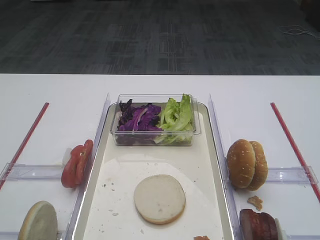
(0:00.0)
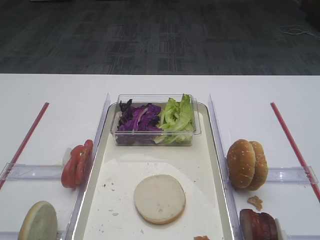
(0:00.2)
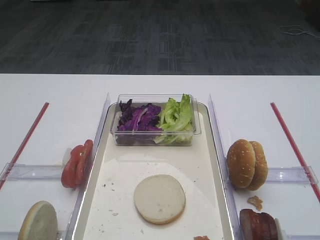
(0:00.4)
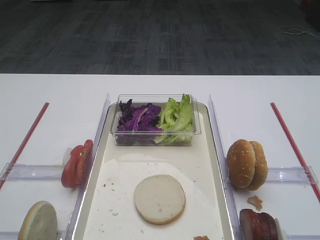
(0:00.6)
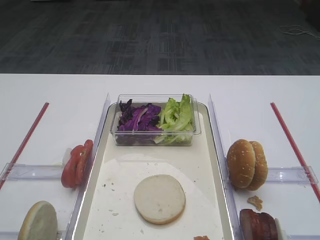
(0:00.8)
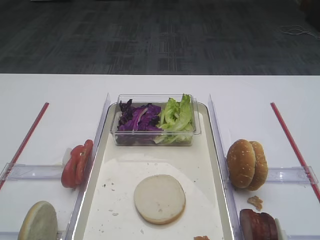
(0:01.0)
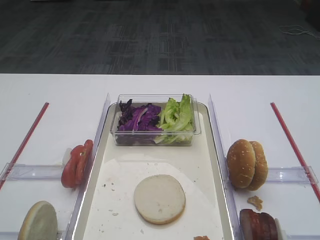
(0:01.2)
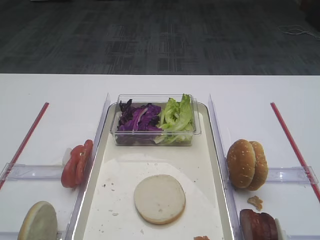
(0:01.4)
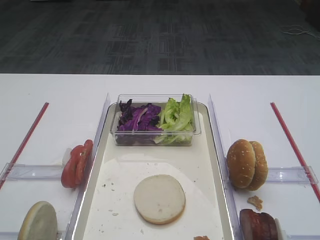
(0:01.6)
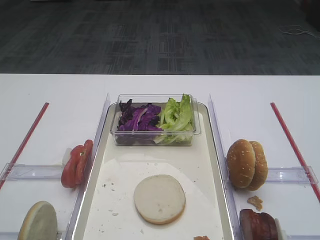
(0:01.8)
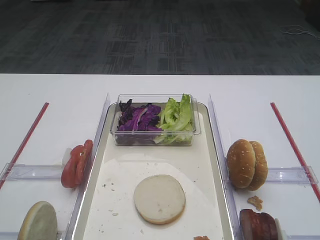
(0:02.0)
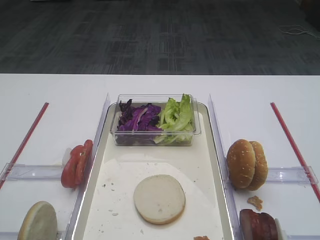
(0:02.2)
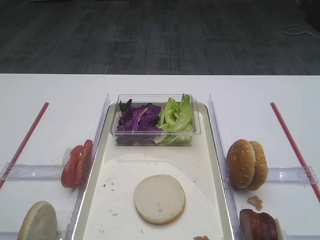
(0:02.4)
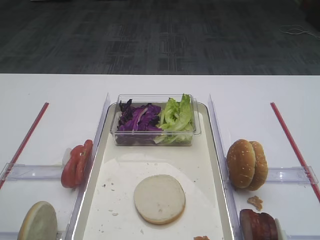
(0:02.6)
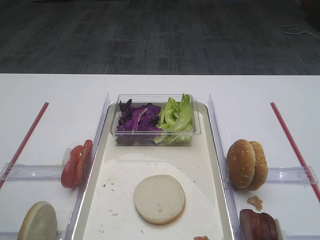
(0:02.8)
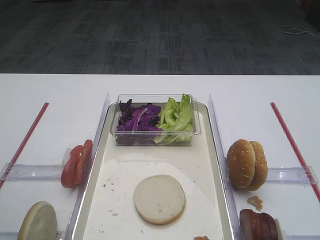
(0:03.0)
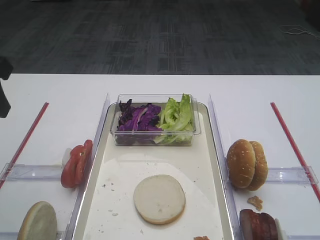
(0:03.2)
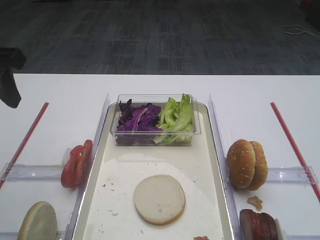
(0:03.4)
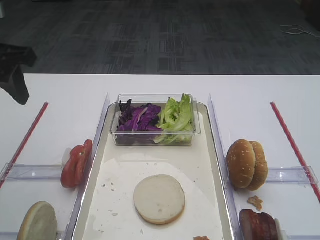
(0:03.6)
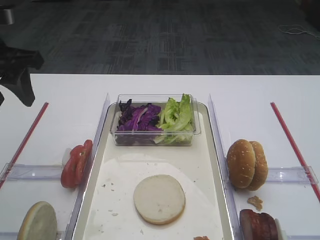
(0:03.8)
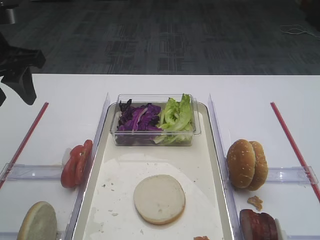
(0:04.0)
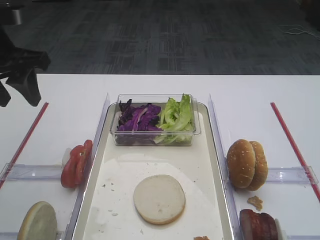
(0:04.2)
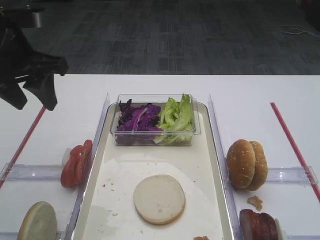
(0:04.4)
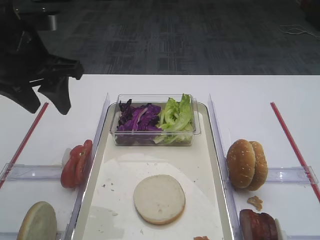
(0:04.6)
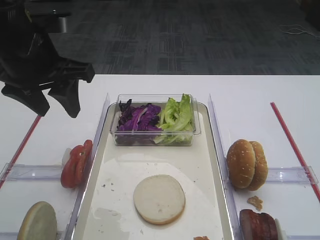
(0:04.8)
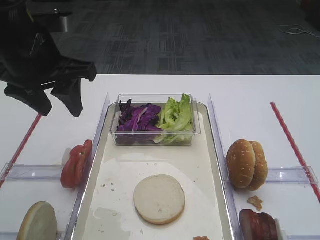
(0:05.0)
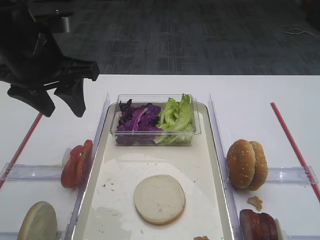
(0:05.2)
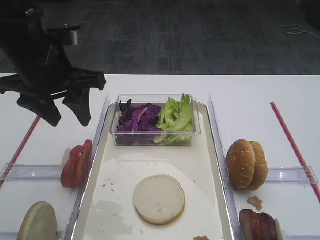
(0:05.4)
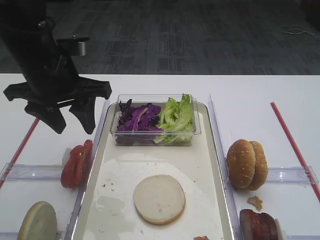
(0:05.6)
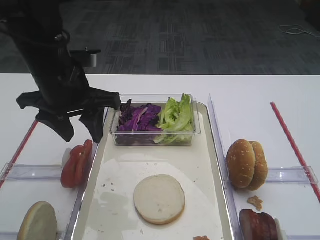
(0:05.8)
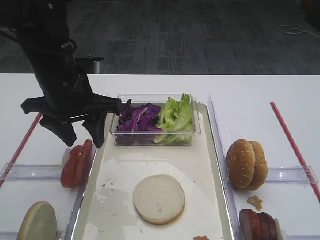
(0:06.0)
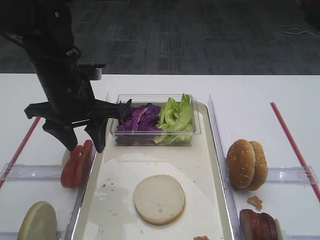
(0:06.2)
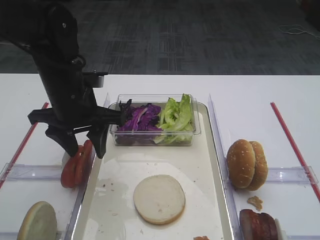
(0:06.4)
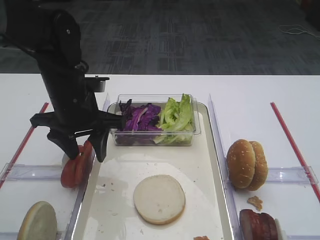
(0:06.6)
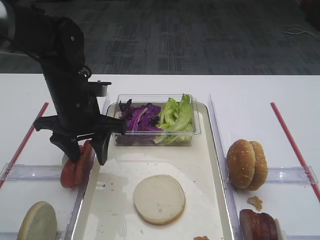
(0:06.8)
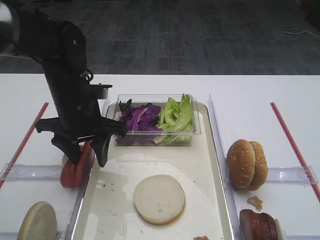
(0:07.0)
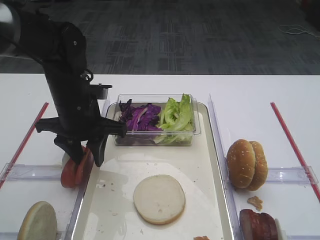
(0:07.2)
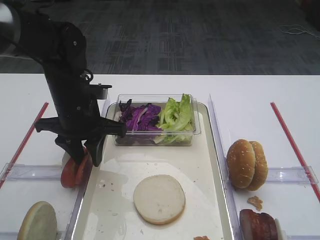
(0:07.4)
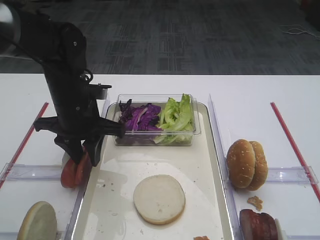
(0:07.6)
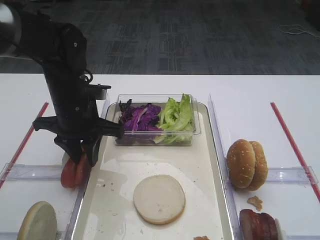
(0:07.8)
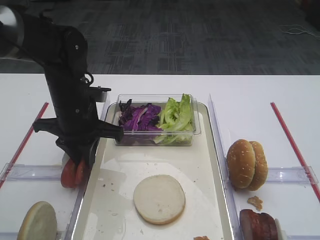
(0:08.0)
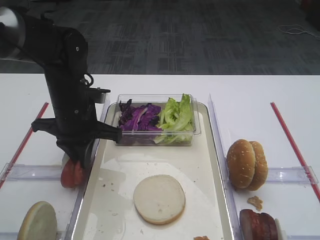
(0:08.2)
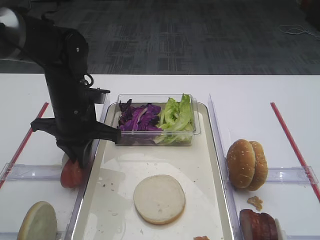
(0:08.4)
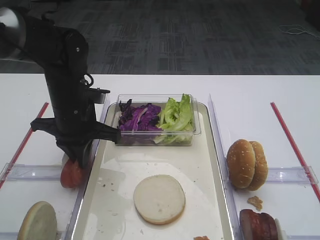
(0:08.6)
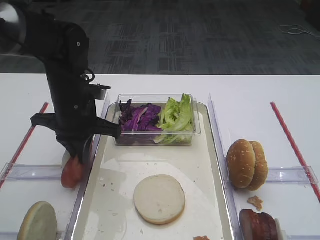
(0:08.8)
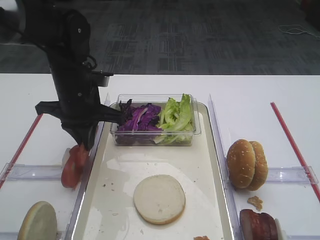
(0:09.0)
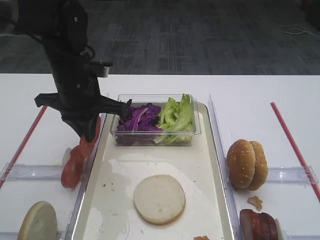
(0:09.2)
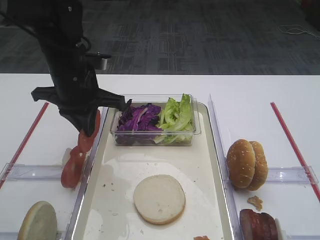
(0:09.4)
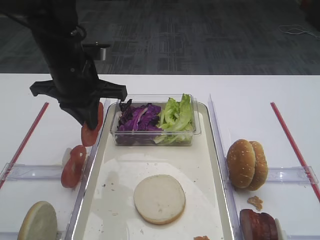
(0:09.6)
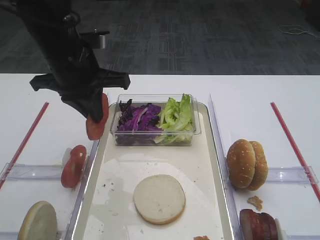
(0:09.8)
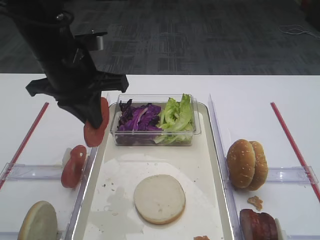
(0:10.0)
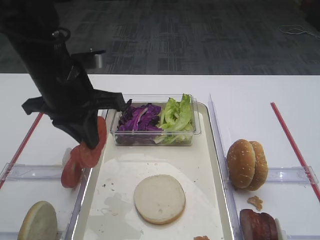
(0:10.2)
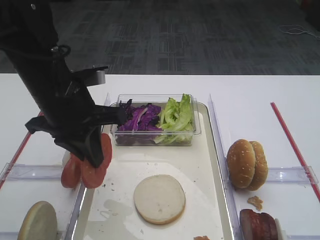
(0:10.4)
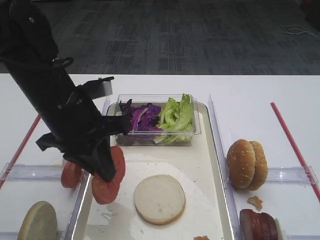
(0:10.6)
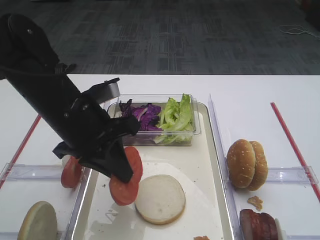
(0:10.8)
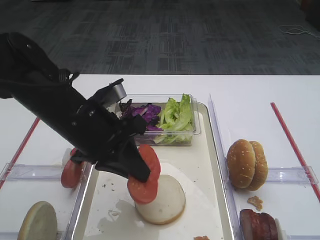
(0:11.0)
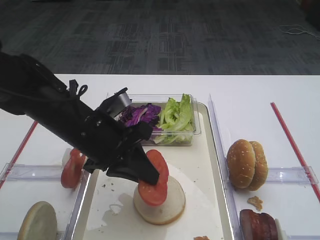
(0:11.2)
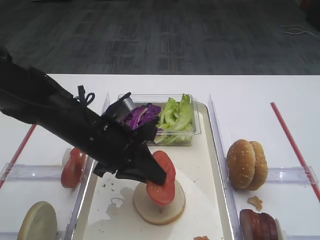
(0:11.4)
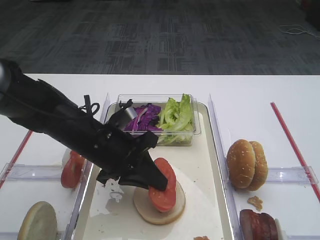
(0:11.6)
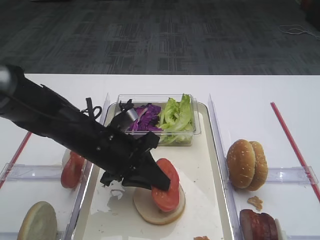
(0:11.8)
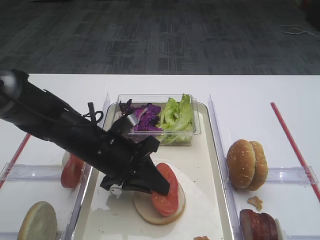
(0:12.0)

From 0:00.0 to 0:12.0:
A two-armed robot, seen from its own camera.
Step, from 0:00.0 to 0:09.0: Pick up the tomato slice with the left gripper.
From 0:03.0 to 0:04.4: The left gripper heads forward, covering approximately 10 cm.
From 0:04.4 to 0:06.0: The left gripper travels to the right and downward by some 10 cm.
From 0:06.0 to 0:07.6: The left gripper travels downward by approximately 5 cm, and closes its fingers.
From 0:07.6 to 0:09.0: The left gripper closes its fingers.
From 0:09.0 to 0:10.4: The left gripper heads backward, covering approximately 5 cm.
From 0:10.4 to 0:12.0: The left gripper travels downward by roughly 10 cm.

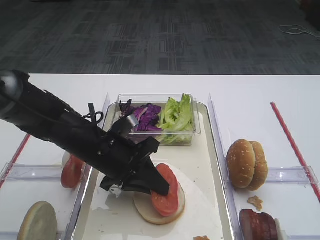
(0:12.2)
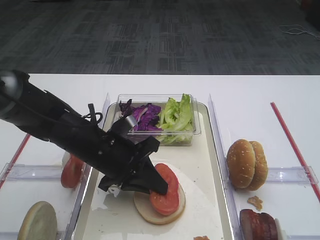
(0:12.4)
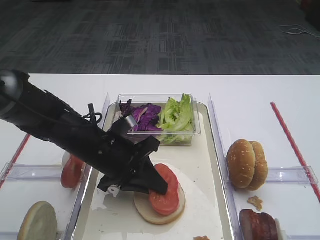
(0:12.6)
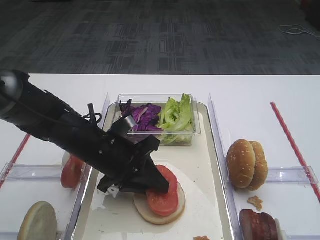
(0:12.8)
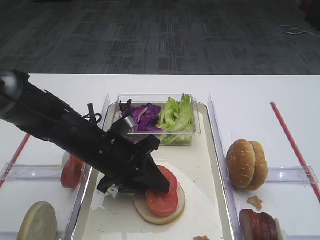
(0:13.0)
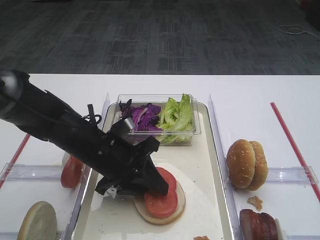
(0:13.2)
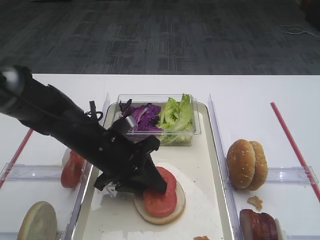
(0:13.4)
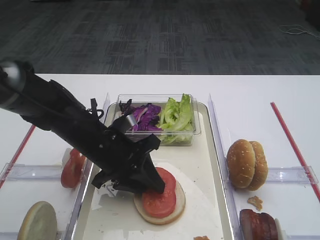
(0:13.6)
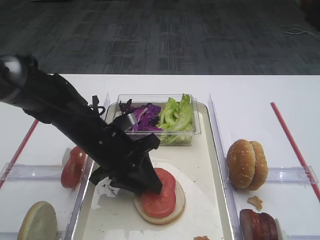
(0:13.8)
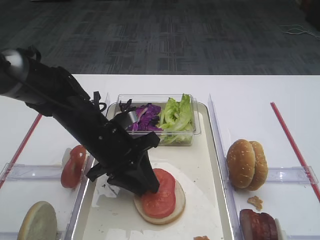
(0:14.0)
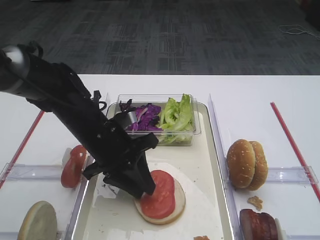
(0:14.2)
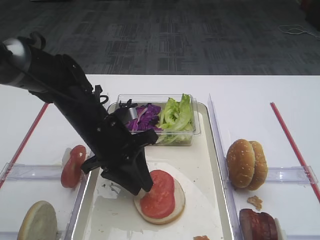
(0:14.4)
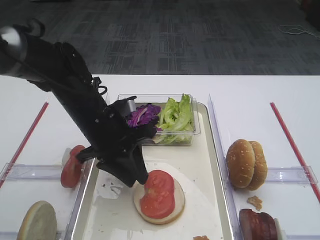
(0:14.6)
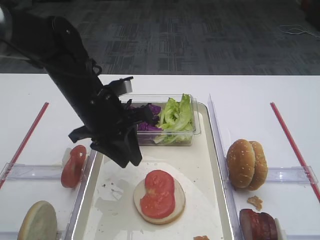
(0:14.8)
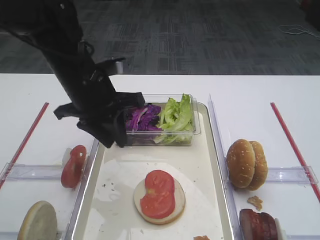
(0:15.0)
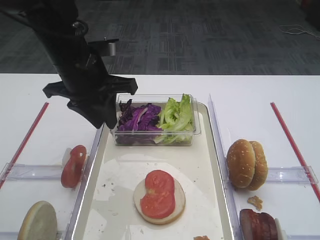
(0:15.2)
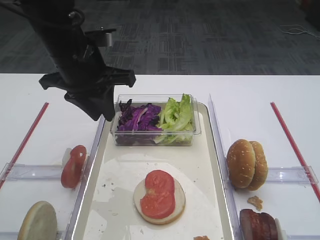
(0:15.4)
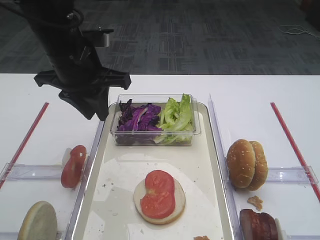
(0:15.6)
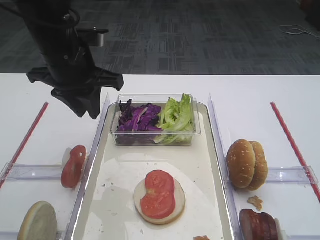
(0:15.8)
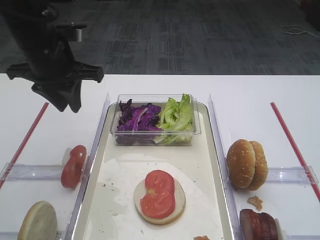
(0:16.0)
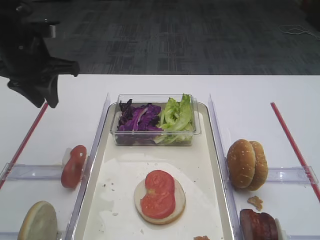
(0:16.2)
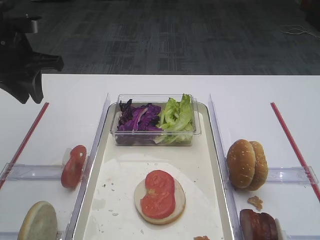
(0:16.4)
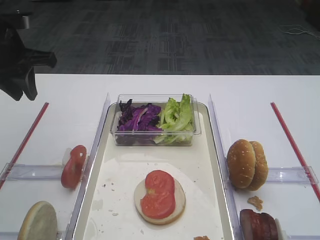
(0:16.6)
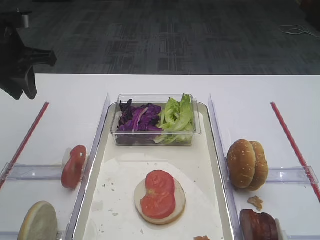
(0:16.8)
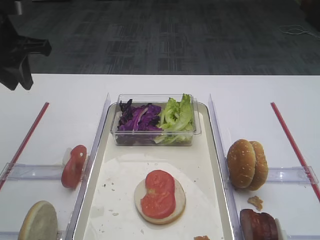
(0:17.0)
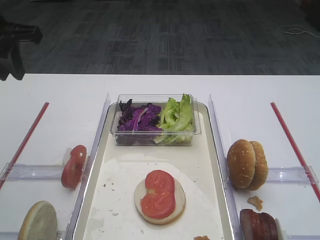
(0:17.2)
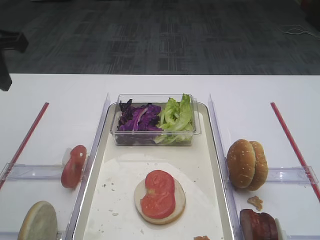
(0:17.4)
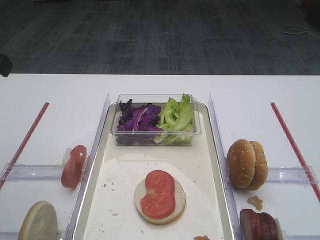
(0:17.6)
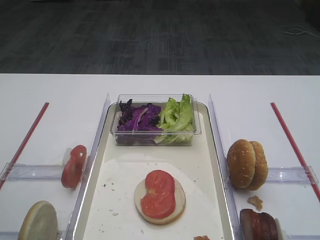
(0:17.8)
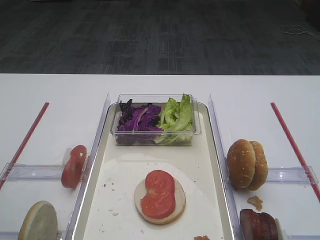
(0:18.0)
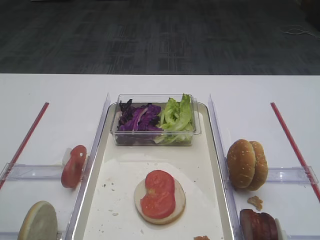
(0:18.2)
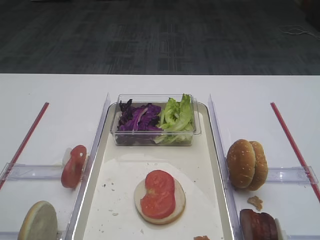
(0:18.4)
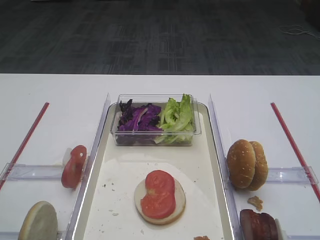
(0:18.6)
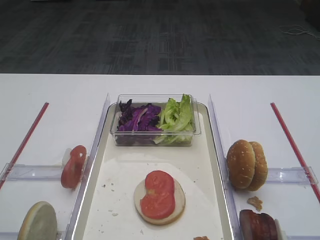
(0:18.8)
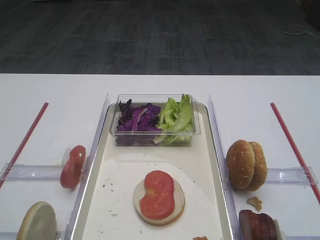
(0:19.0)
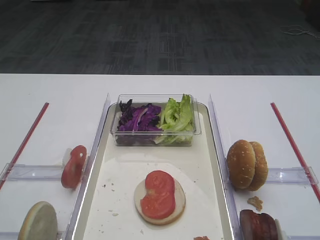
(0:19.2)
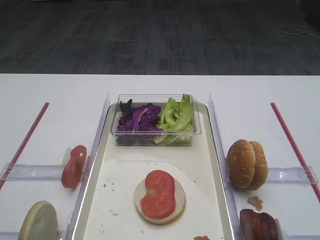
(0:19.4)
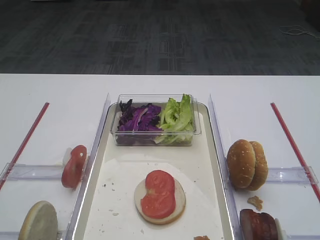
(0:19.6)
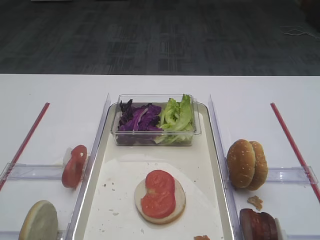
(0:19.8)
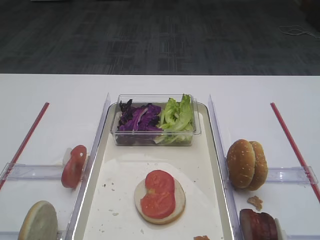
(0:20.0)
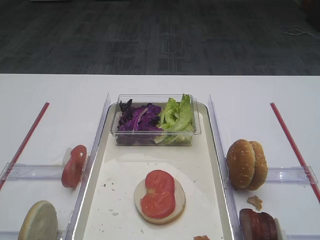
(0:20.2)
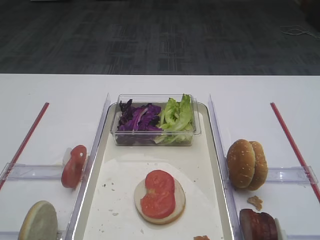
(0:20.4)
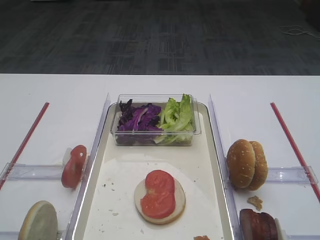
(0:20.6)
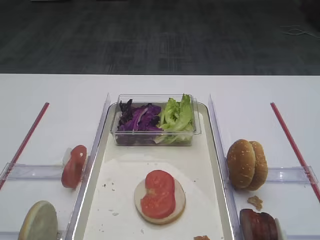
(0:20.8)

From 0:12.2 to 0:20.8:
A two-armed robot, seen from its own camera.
Step, from 0:12.2 to 0:14.4: Place the tomato slice on the bread slice with the left gripper.
From 0:12.2 to 0:13.6: The left gripper opens its fingers.
From 0:13.6 to 0:15.0: The left gripper travels upward by some 10 cm.
From 0:15.0 to 0:16.6: The left gripper travels to the left by about 15 cm.
From 0:16.6 to 0:18.0: The left gripper heads backward, covering some 20 cm.

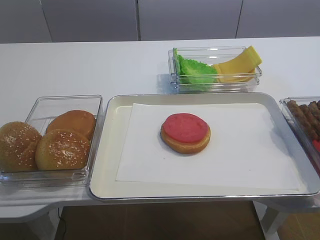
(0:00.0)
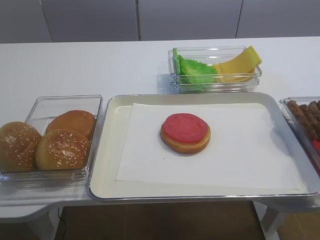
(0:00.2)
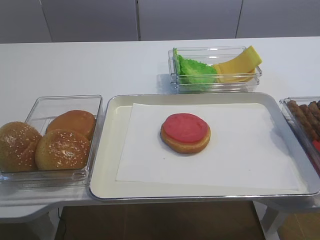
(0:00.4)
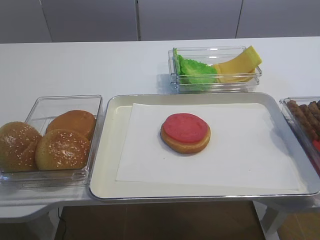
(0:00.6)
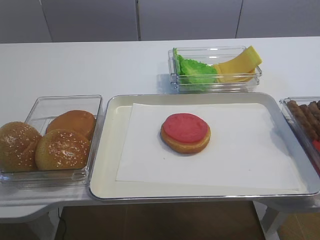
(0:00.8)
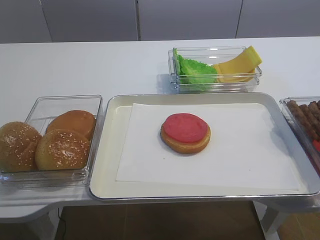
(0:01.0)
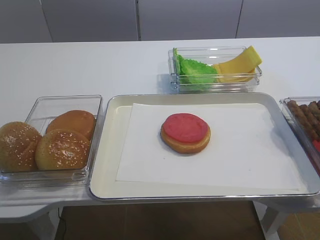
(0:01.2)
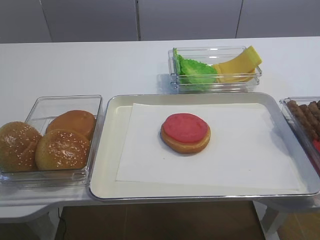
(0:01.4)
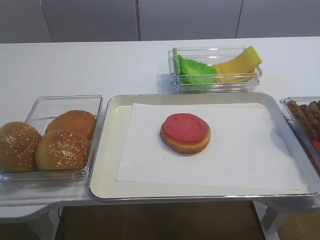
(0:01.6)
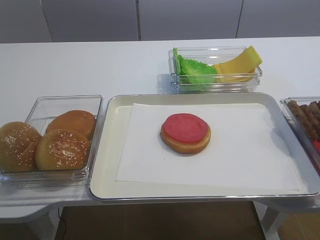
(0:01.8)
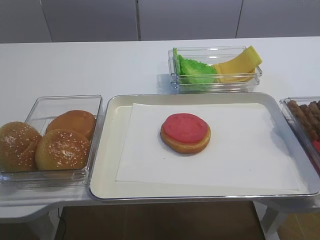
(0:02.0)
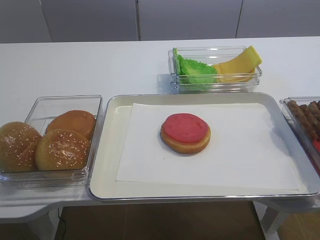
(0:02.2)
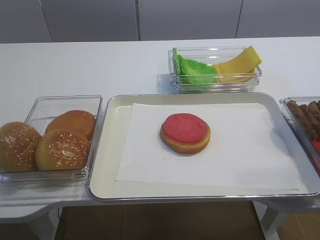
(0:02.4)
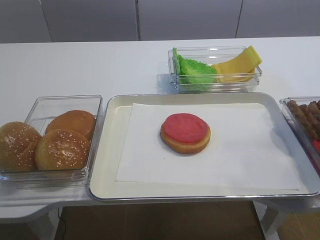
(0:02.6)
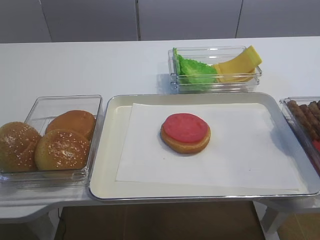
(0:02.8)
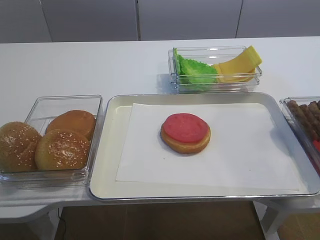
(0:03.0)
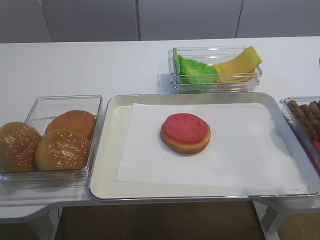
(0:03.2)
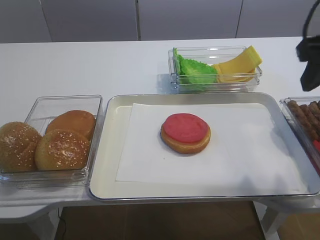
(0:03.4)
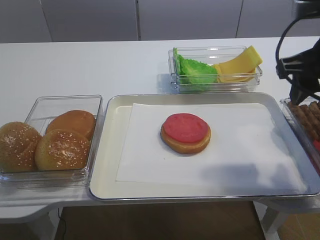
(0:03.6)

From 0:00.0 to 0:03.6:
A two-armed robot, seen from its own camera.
From 0:01.8 to 0:03.6: The right gripper is displaced forward by some 25 cm, and opens up.
